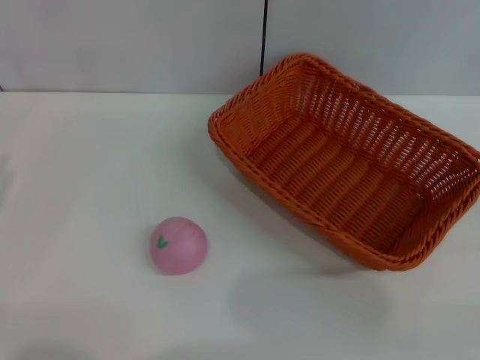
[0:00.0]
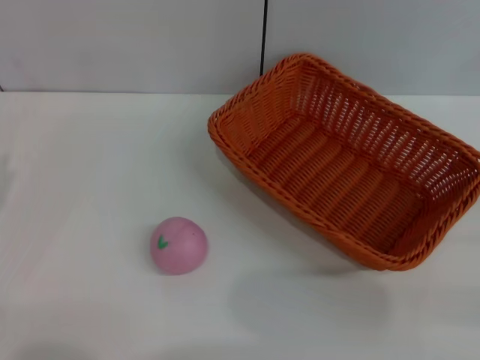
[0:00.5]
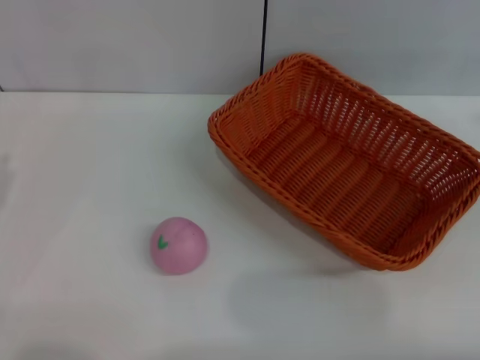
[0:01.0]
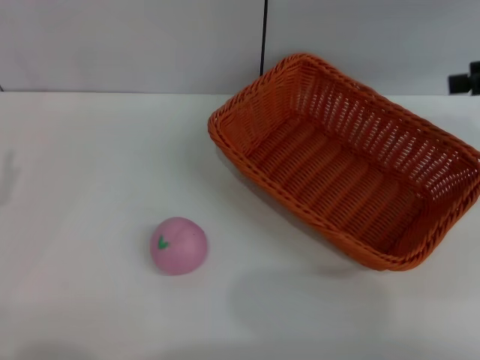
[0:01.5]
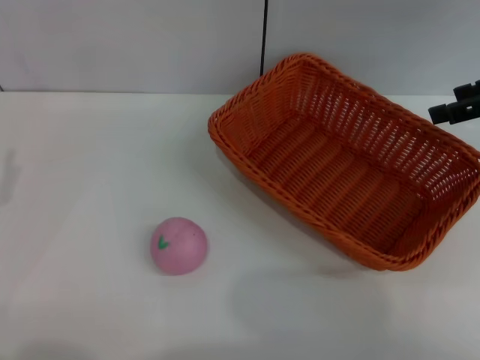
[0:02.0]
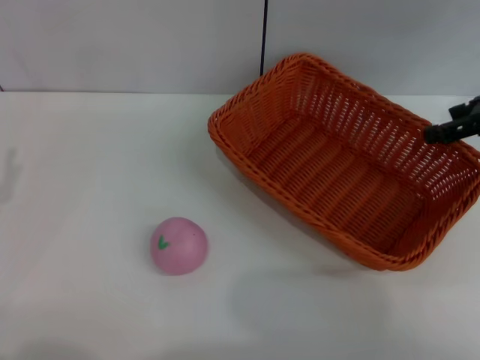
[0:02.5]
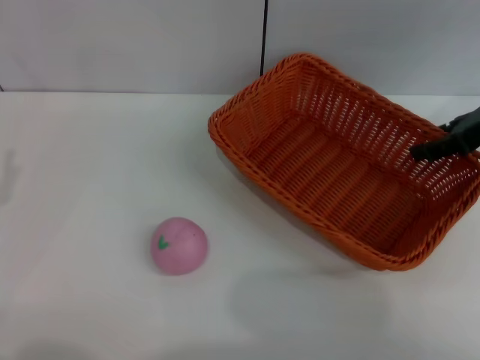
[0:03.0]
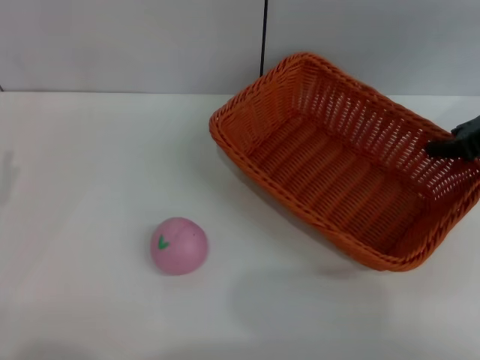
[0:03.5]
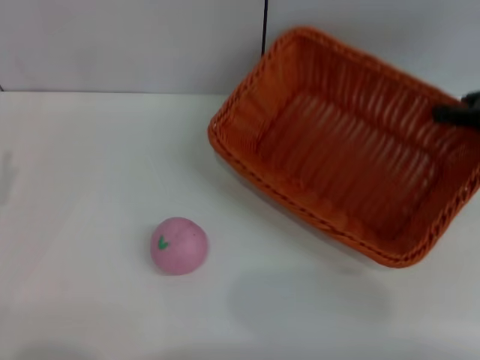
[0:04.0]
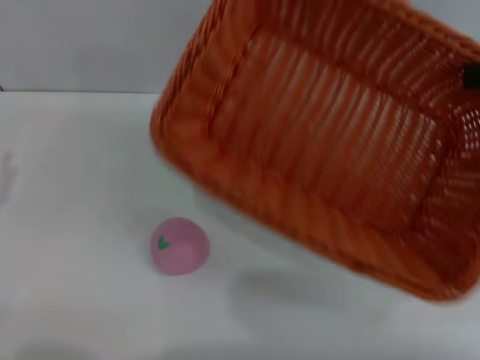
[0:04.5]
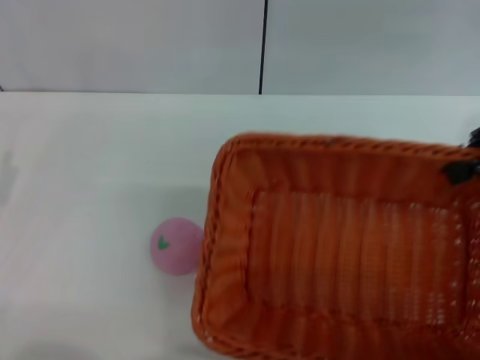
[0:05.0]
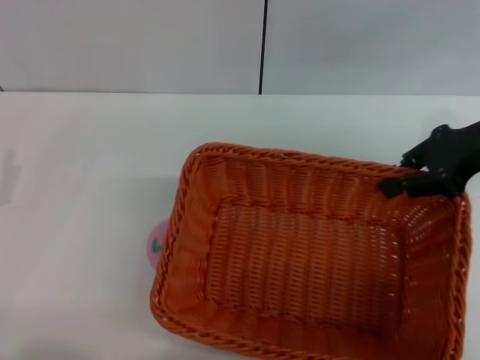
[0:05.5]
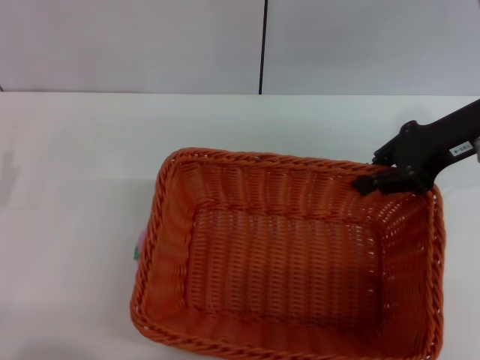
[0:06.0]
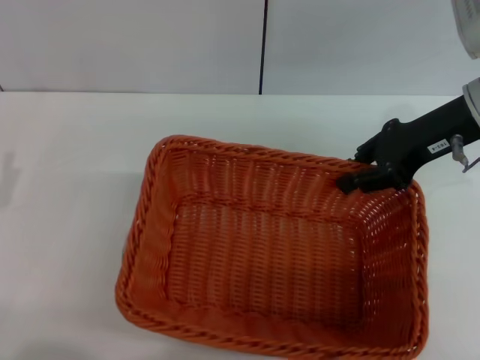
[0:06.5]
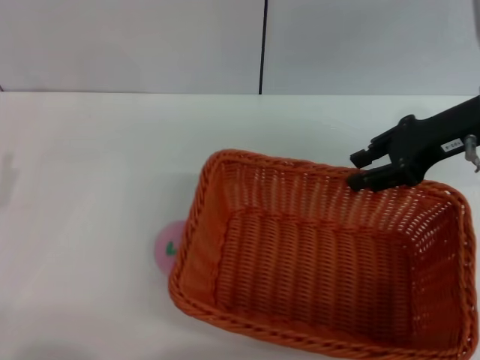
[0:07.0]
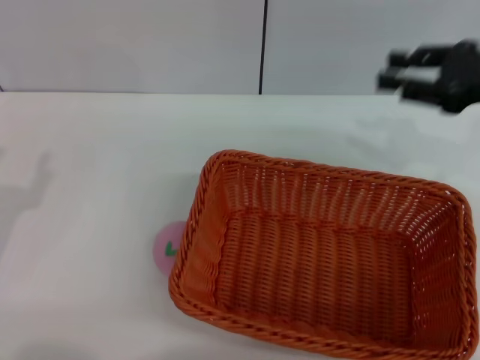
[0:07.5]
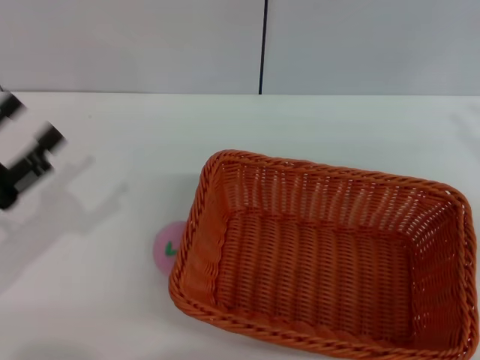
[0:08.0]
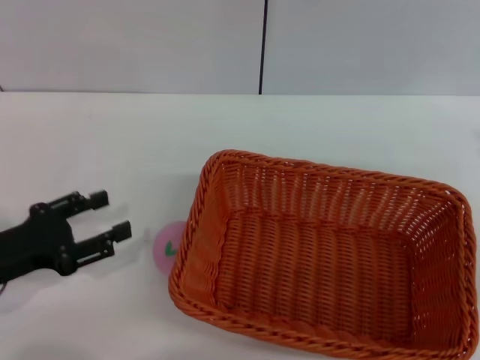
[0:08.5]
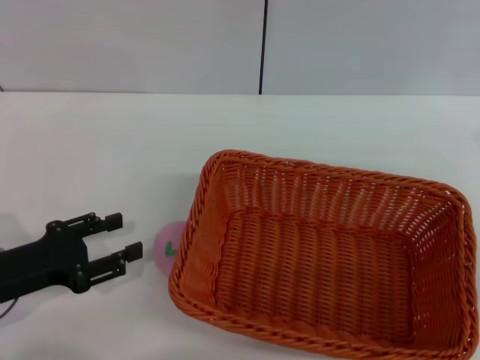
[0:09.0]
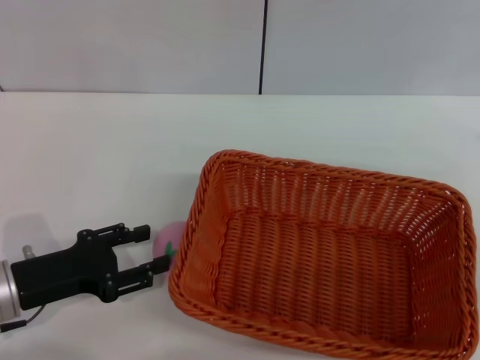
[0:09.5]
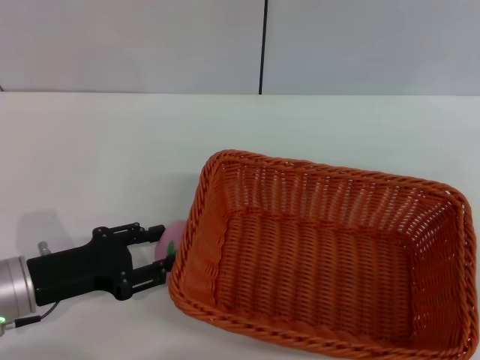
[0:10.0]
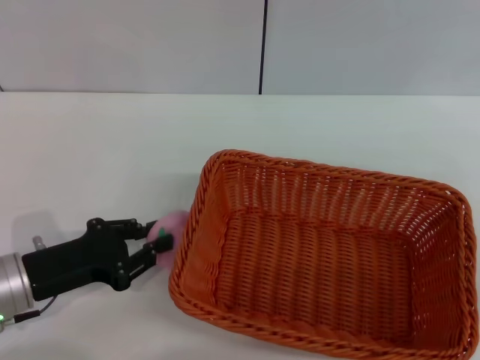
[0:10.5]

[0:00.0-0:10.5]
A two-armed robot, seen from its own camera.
Step, 0:00.0 to 0:03.5: Pick up the light basket with the right gripper.
Step, 0:04.0 to 0:07.0: Place the light basket in the center of view with the right gripper.
0:00.0 to 0:02.0: The right gripper travels forward, upward and to the left by about 25 cm.
0:02.0 to 0:04.0: The right gripper closes its fingers.
0:04.0 to 0:06.5: The right gripper travels to the left by about 10 cm.
0:06.5 to 0:08.5: The right gripper is displaced backward and to the right by roughly 20 cm, and opens.
0:08.5 to 0:10.5: The left gripper shifts by about 5 cm, and closes up.

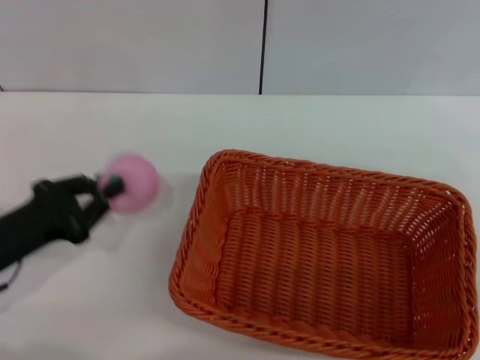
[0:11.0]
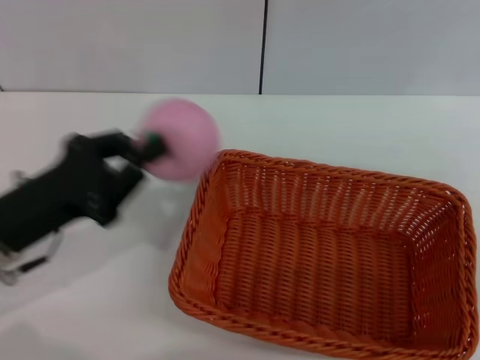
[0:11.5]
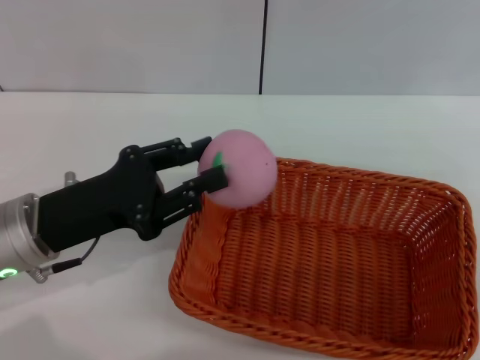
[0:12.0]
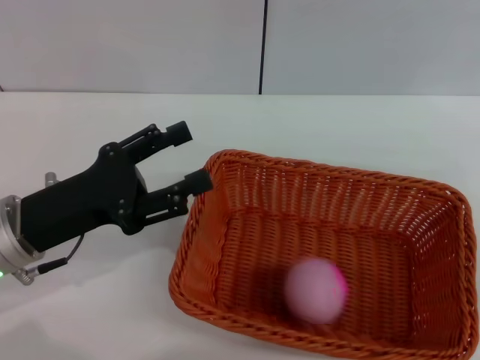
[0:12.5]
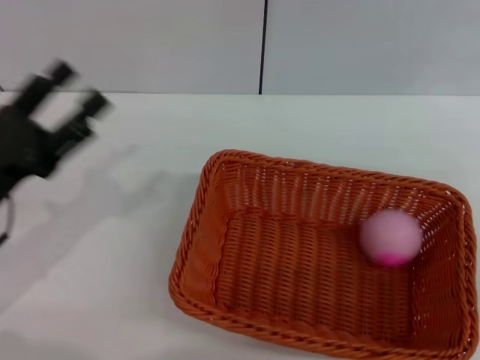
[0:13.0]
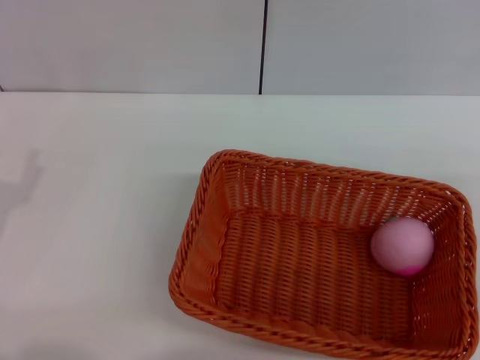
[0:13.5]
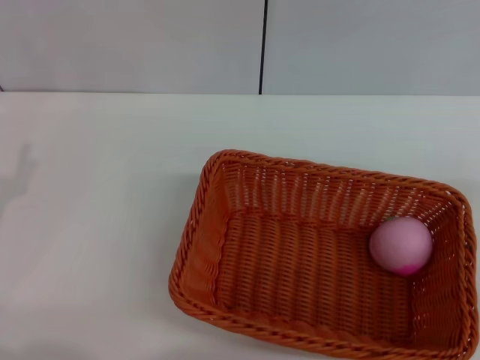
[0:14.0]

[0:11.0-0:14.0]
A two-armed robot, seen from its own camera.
Step, 0:11.5 to 0:12.0: Place the peach into the basket with the left gripper.
0:11.0 to 0:12.5: The left gripper heads to the right, covering roughly 5 cm, and opens.
0:12.5 to 0:14.0: The left gripper travels to the left by about 10 cm.
